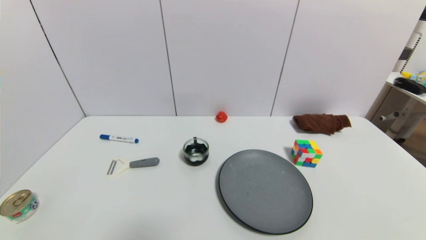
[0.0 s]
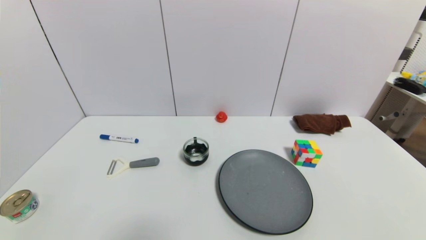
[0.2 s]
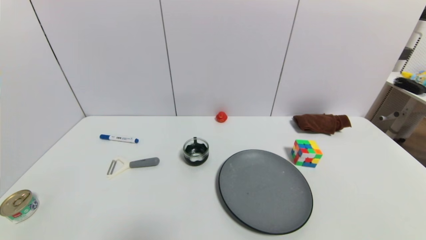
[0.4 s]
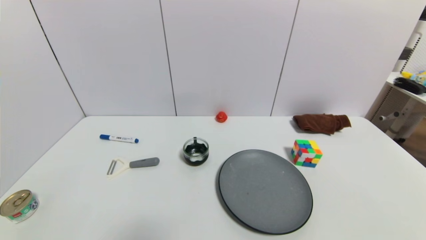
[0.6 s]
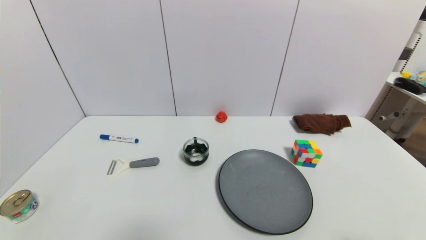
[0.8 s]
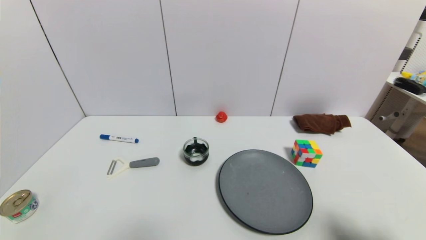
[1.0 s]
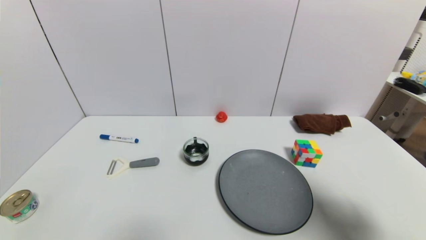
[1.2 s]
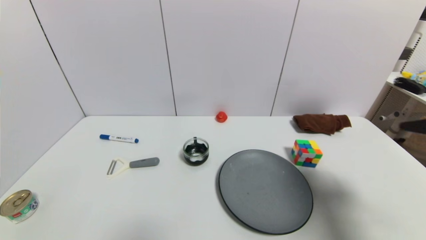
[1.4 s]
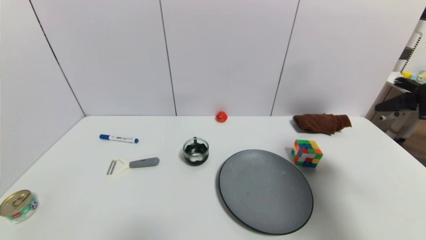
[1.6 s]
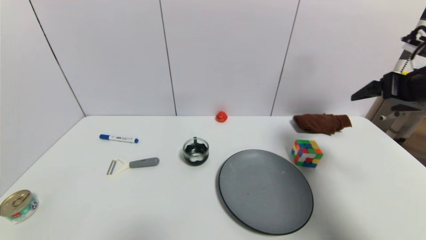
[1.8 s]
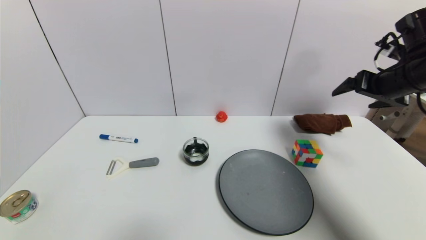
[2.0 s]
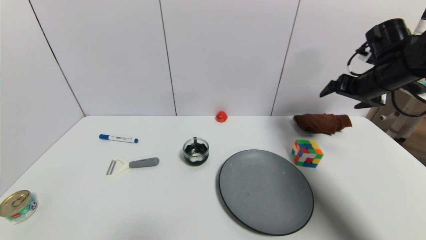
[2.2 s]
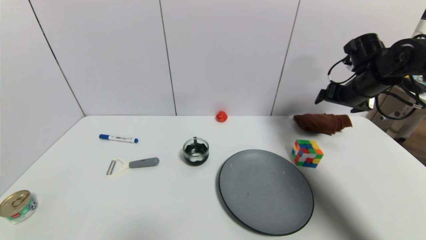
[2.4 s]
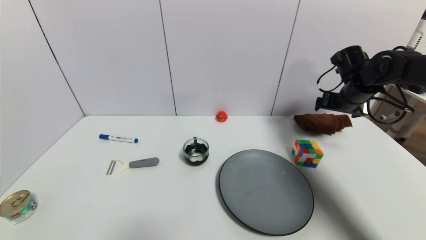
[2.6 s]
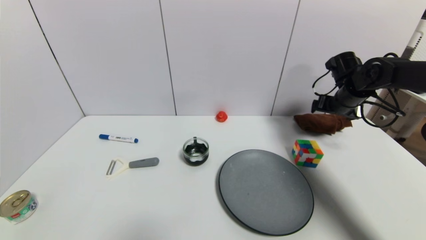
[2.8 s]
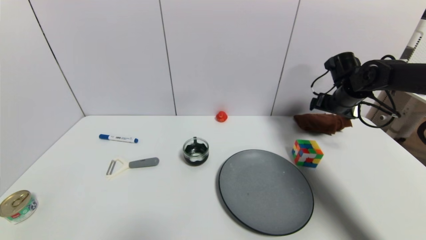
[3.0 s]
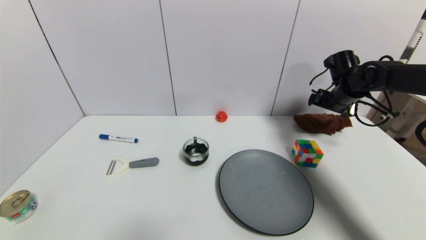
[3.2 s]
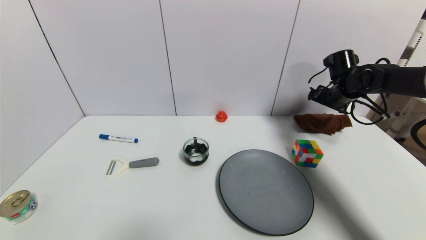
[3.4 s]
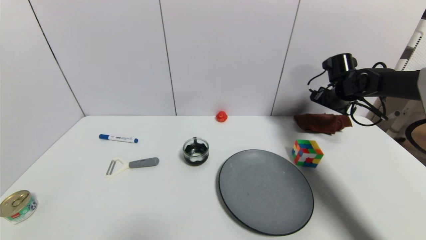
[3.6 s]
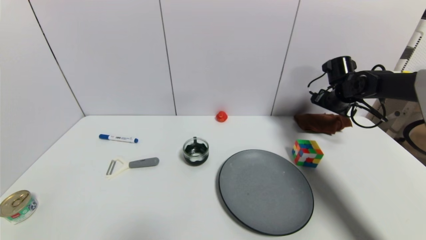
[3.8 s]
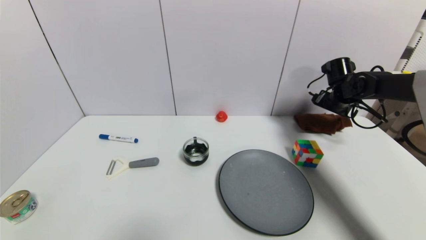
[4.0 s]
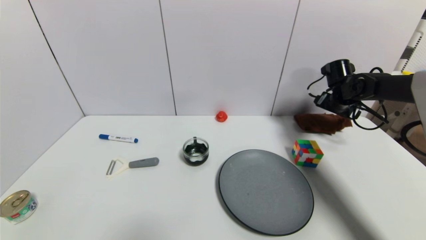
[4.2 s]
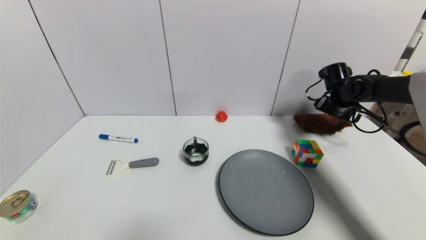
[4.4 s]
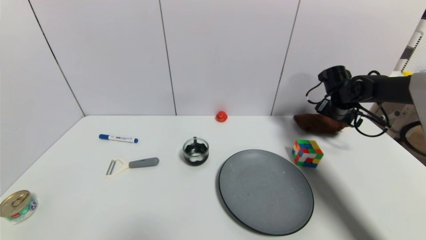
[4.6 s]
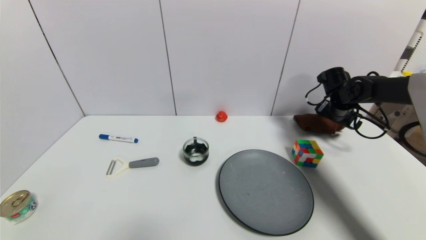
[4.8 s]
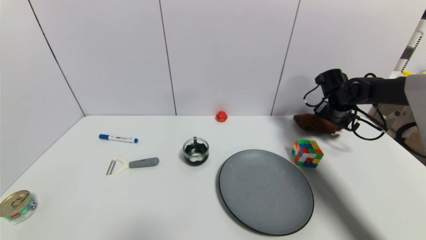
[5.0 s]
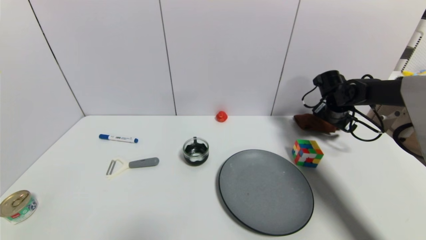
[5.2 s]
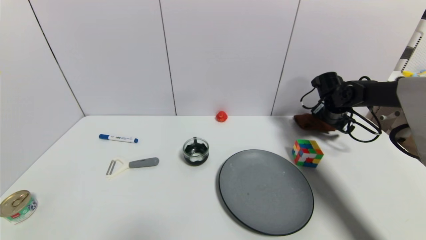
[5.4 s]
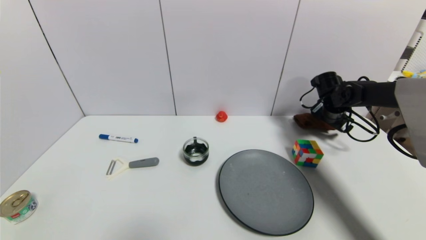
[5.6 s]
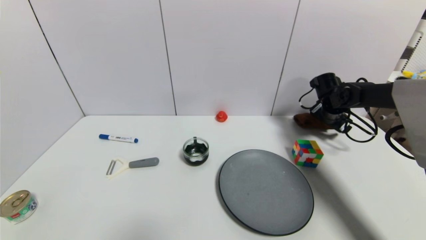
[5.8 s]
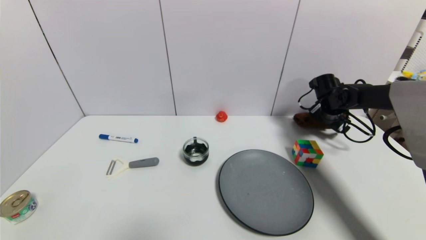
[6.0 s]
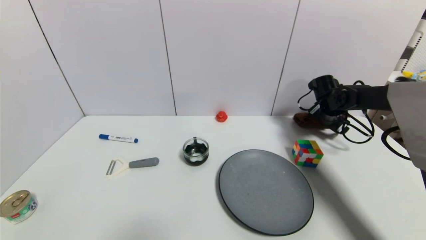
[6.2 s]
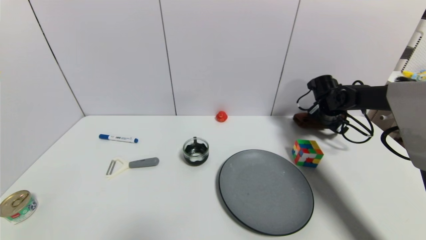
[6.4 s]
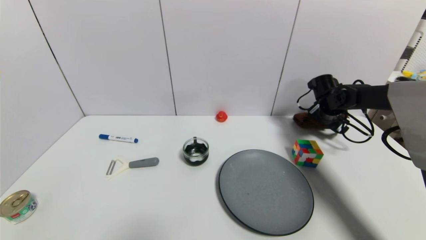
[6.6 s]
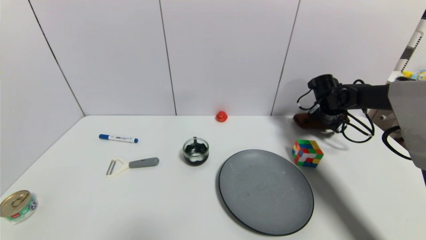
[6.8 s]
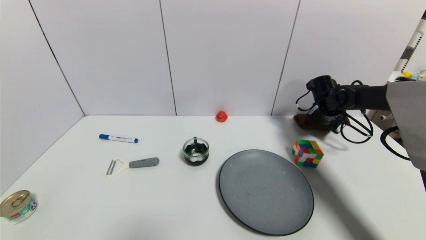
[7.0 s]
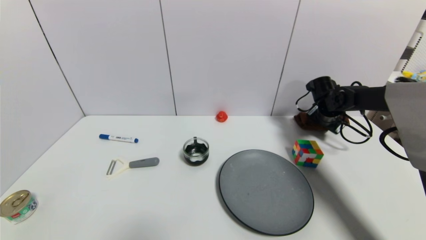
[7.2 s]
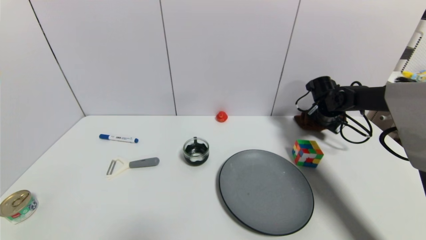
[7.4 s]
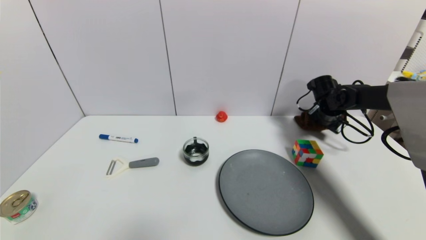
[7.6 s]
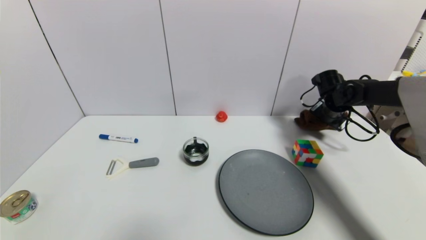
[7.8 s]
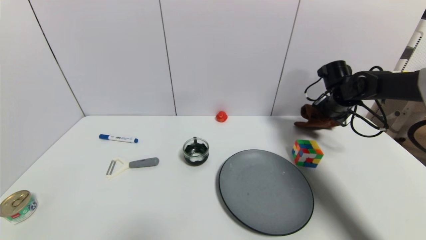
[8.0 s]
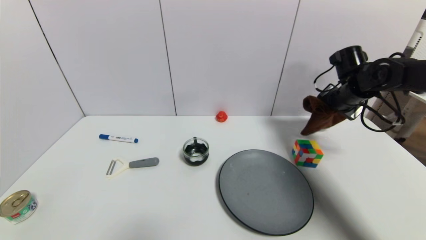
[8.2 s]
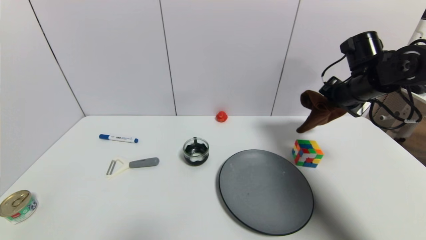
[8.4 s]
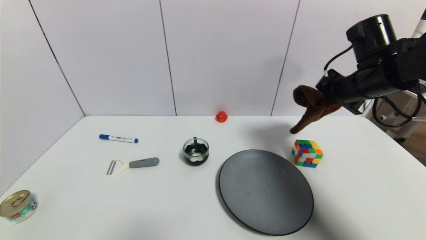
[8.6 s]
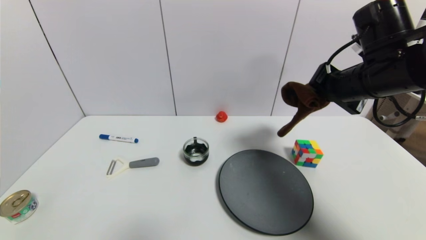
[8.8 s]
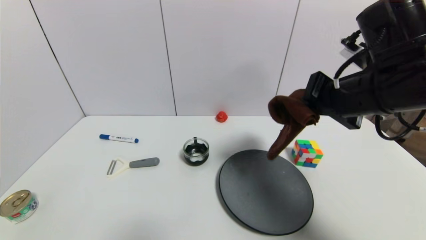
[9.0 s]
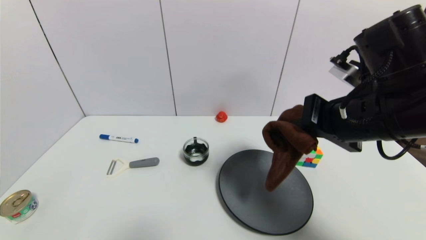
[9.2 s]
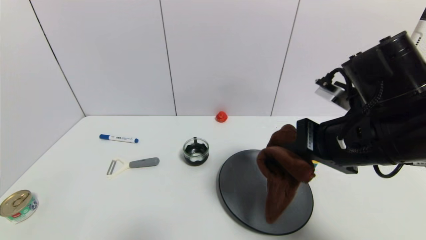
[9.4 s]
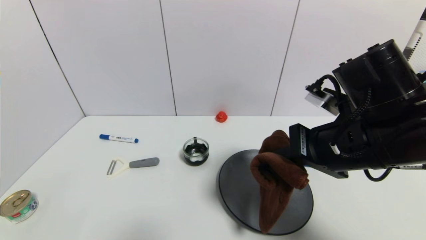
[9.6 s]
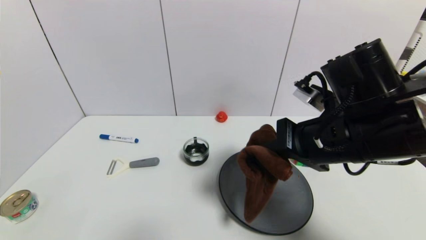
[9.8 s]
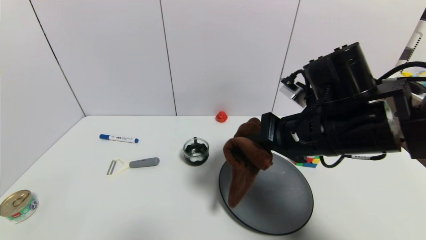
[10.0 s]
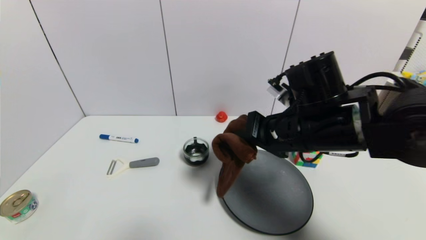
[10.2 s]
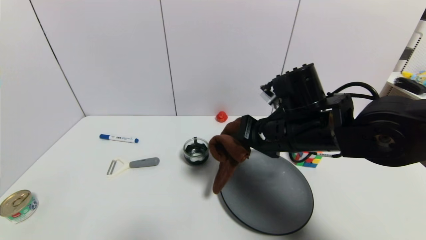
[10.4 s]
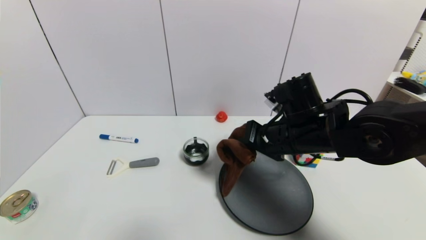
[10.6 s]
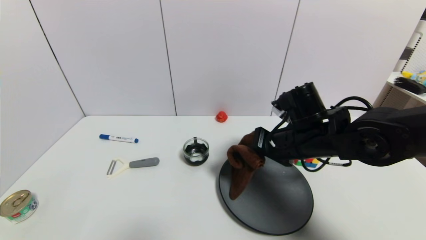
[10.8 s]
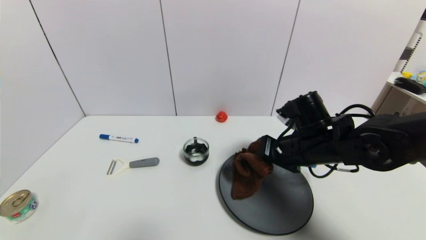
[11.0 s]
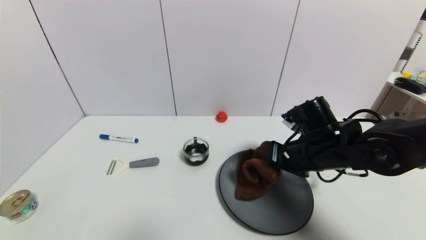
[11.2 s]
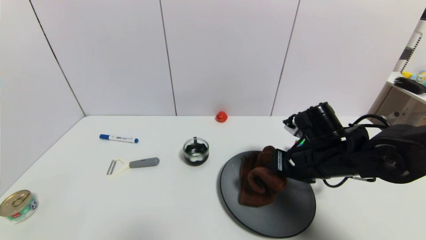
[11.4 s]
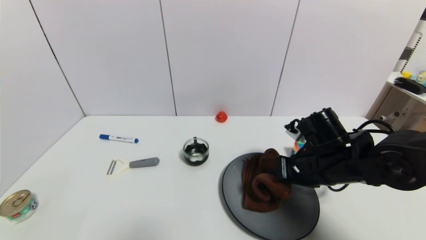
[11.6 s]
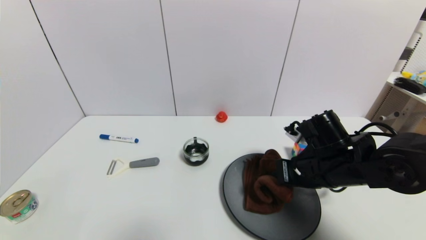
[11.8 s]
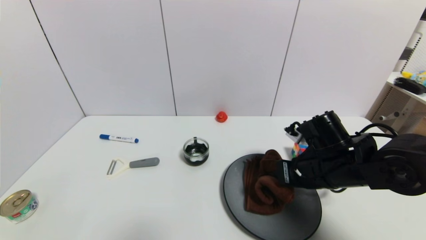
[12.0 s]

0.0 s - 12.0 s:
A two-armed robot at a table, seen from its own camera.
Task of the whole recording: use a gripper to pick the target object and place on the gray plate.
Step, 0.0 s - 7.4 s: Grasp the brown towel with the right gripper.
0.0 s - 1.6 s: The right gripper moves upward and forward, roughly 30 cm.
1.6 s - 3.0 s: The right gripper heads forward and downward, covering some 25 cm.
3.0 s - 4.4 s: The grippers move only a little.
4.4 s - 6.0 s: The grippers move only a little.
6.0 s - 7.6 s: The right gripper closes its fingers.
7.6 s - 9.0 s: The right gripper goes some 30 cm backward, upward and to the left.
9.0 s - 10.4 s: The right gripper travels downward and to the left by some 10 cm.
10.4 s - 12.0 s: The right gripper goes roughly 10 cm downward and to the right.

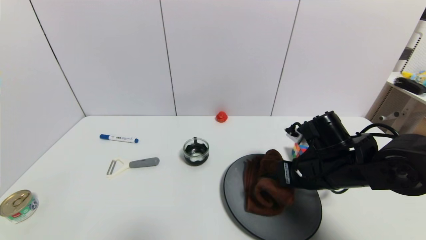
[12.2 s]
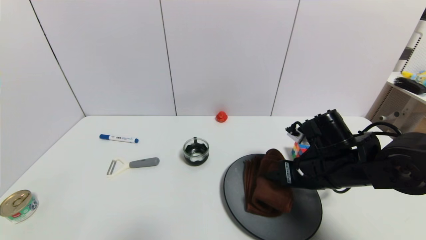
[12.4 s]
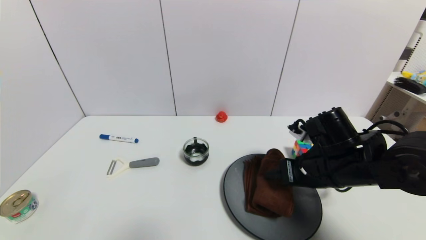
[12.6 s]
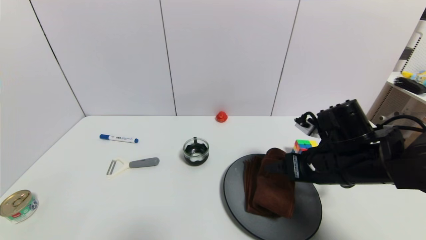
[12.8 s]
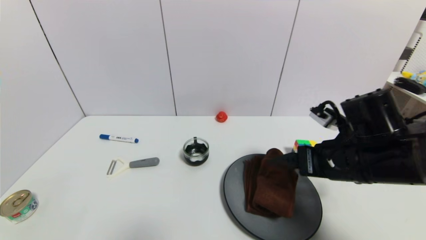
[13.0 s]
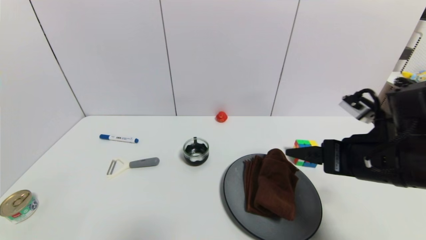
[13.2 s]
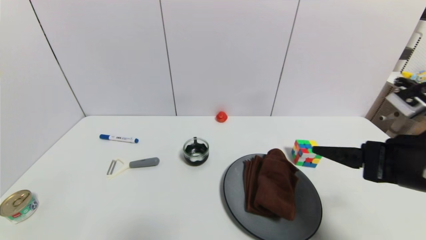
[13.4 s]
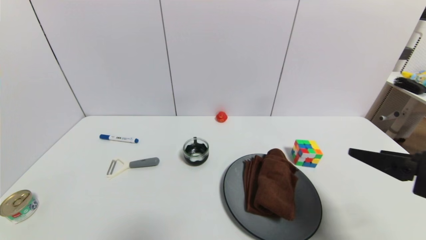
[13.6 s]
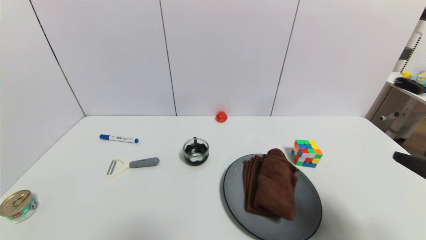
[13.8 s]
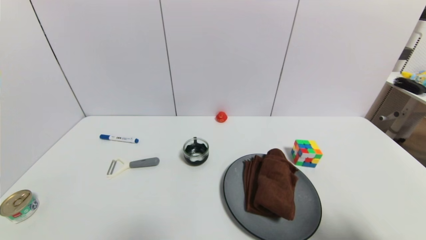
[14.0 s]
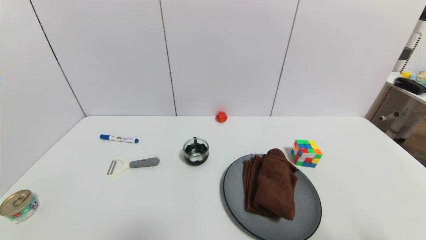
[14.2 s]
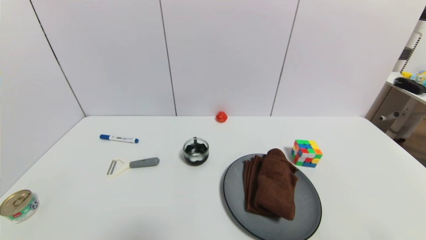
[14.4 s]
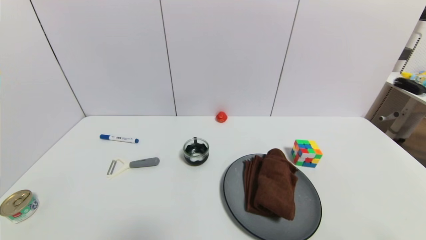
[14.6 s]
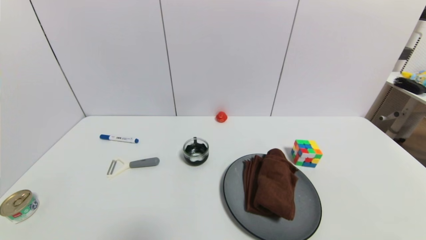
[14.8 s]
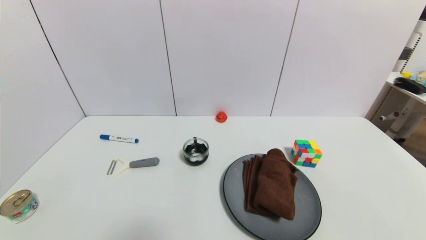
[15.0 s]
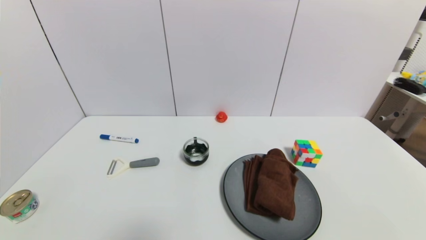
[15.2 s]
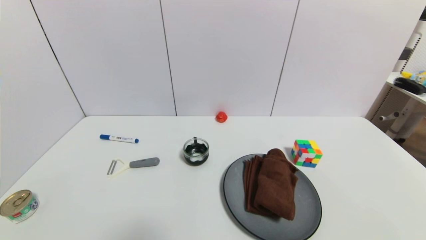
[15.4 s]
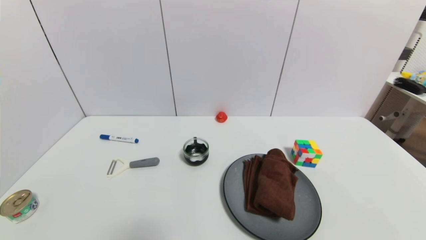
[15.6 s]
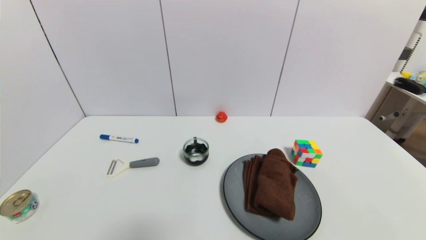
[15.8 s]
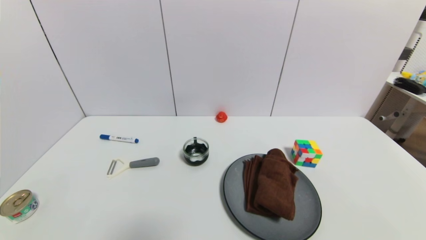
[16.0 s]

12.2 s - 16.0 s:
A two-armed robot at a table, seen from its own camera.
Task of the whole recording: use a gripper to pick the target object and place on the gray plate.
12.2 s - 13.4 s: The right gripper is displaced backward, upward and to the right by some 15 cm, and opens up.
13.4 s - 14.8 s: The right gripper goes some 20 cm backward, downward and to the right.

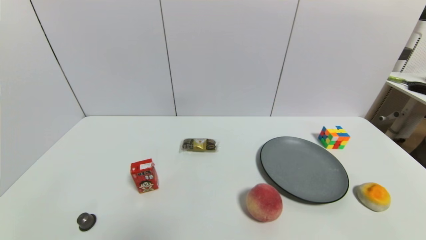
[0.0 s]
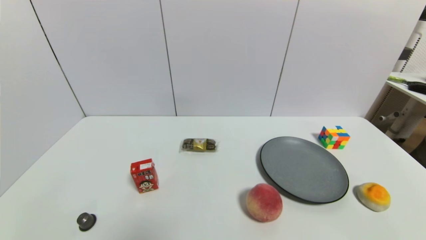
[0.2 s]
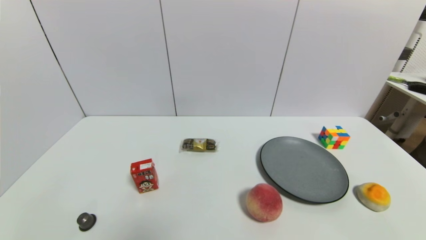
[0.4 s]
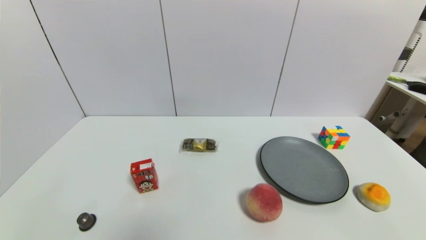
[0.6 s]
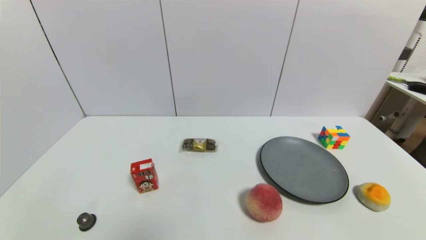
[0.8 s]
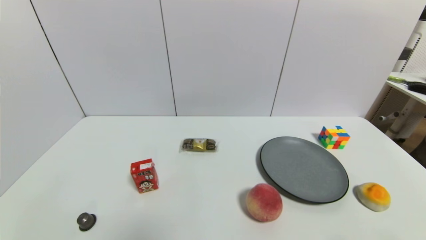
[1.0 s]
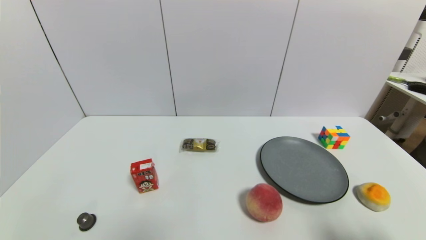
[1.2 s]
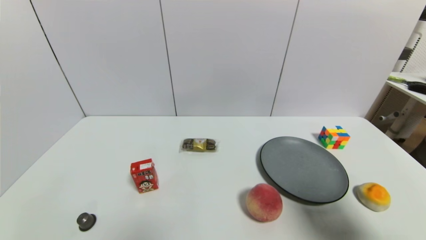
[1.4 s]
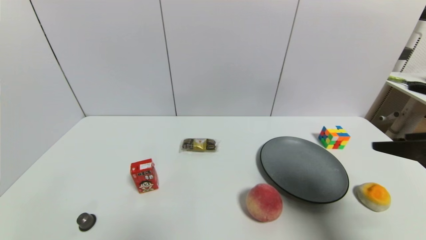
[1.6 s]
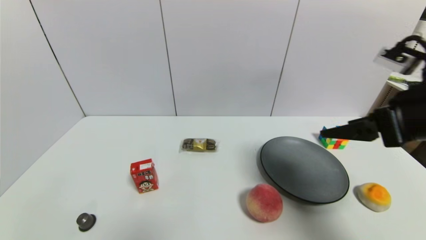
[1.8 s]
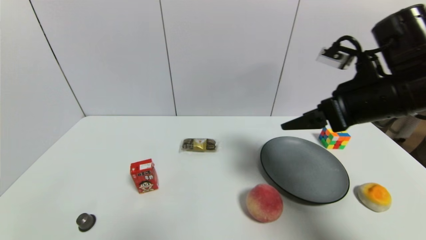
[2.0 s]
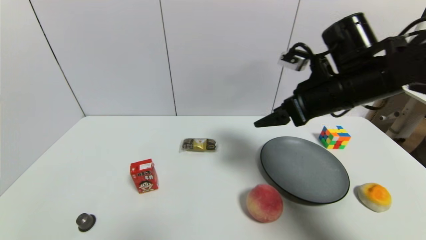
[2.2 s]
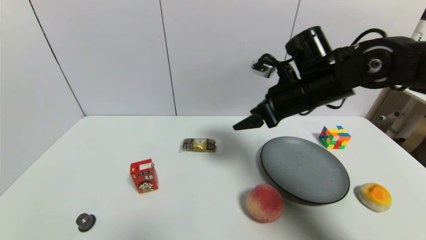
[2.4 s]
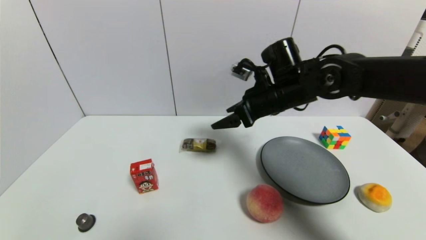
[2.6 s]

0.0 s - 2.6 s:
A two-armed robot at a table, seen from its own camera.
Task of the whole recording: use a gripper to pick the target object and place on the gray plate.
0.0 s - 1.2 s: The right gripper moves upward, roughly 15 cm.
1.2 s - 2.6 s: The right gripper shifts about 40 cm forward and to the left.
